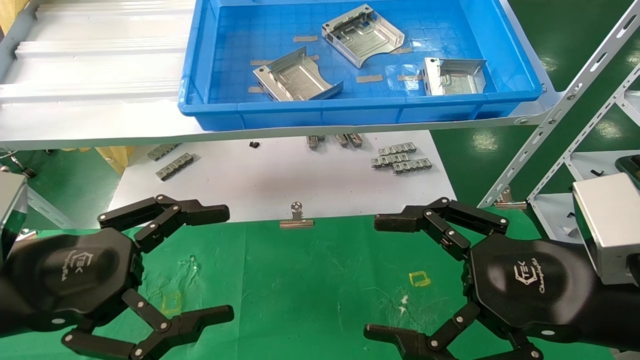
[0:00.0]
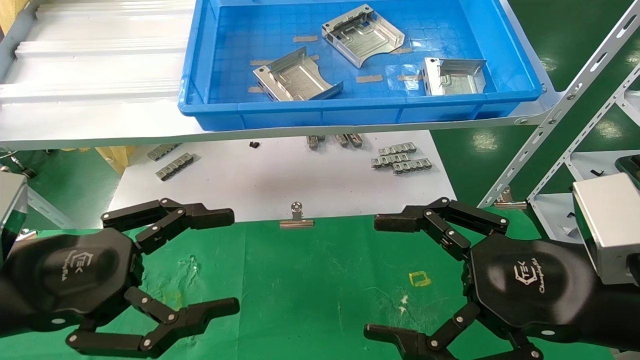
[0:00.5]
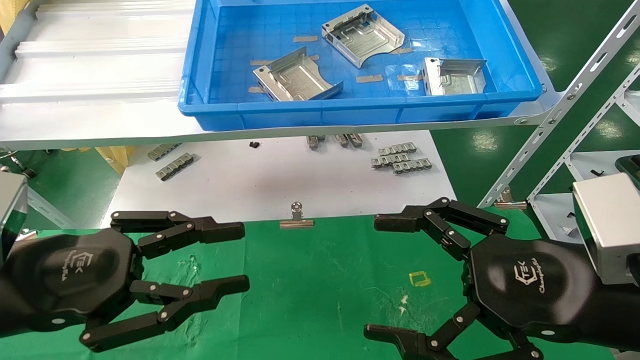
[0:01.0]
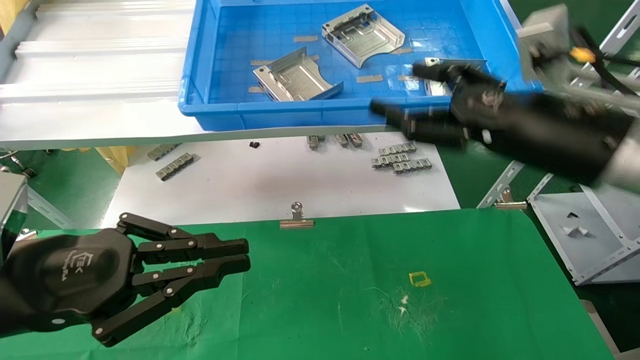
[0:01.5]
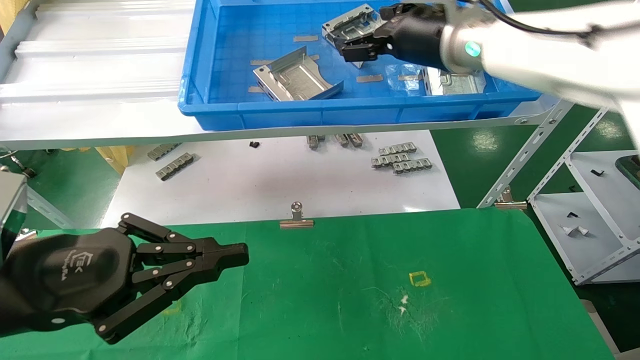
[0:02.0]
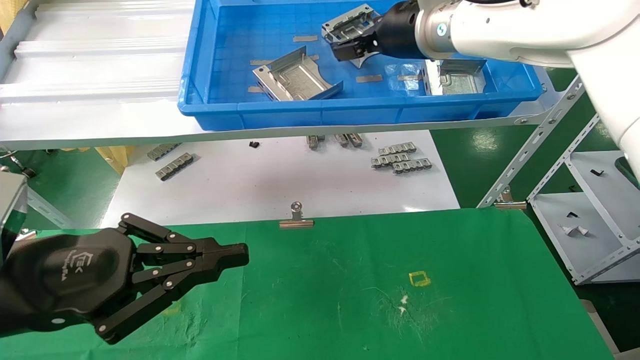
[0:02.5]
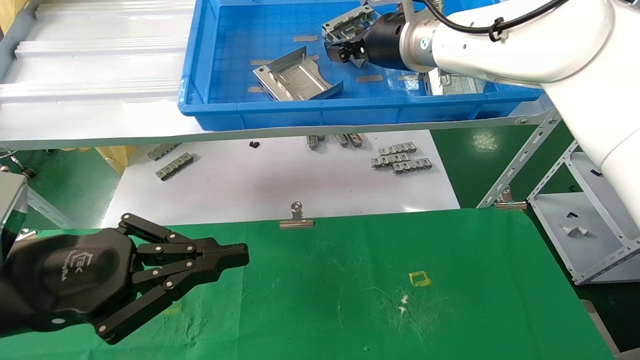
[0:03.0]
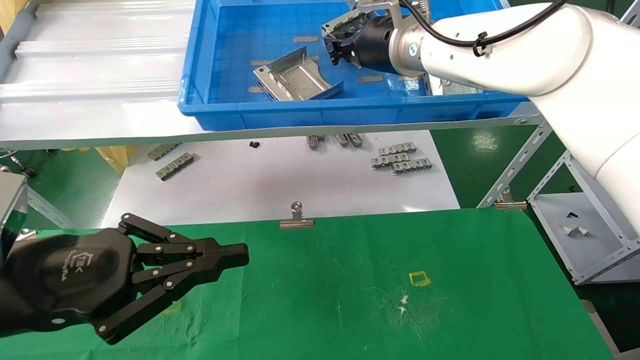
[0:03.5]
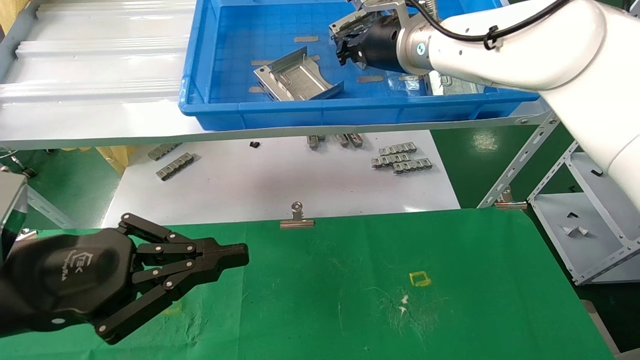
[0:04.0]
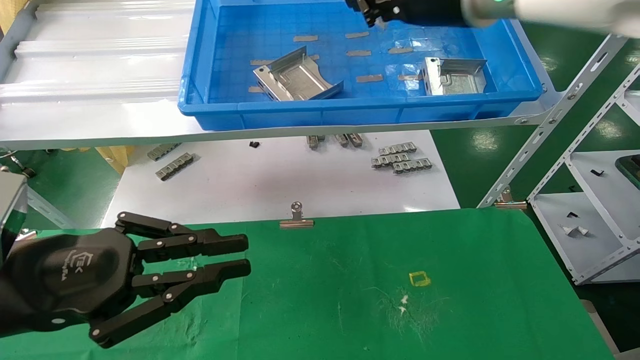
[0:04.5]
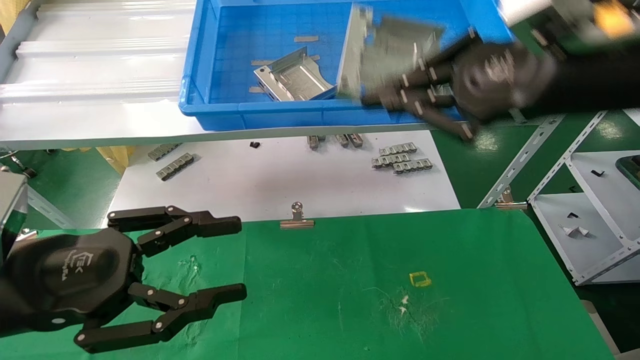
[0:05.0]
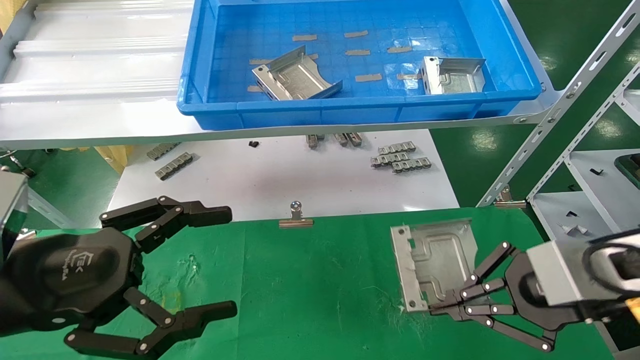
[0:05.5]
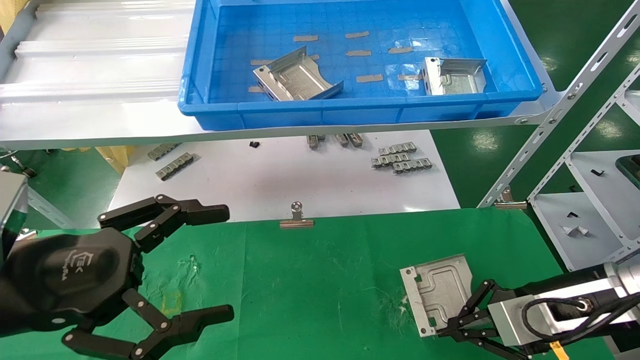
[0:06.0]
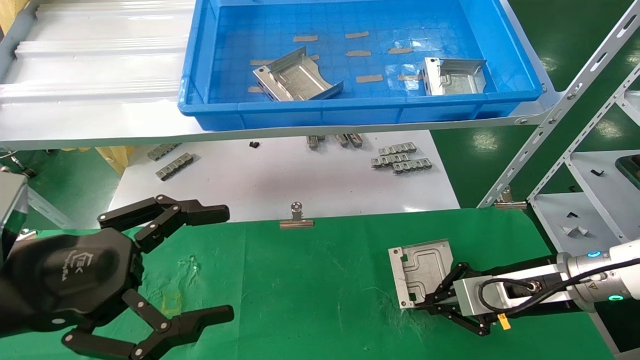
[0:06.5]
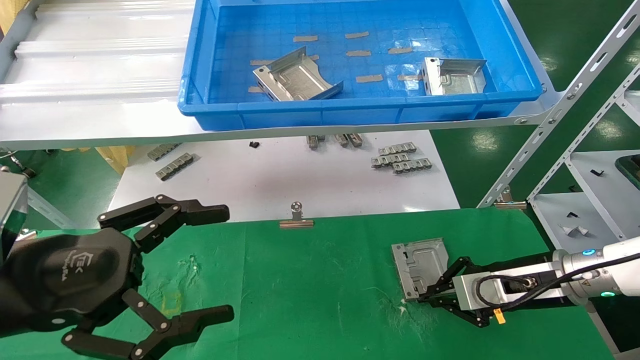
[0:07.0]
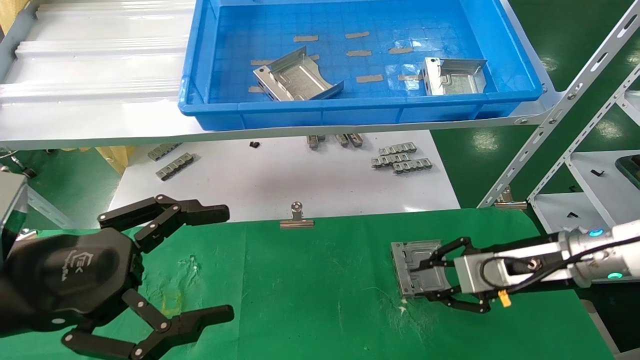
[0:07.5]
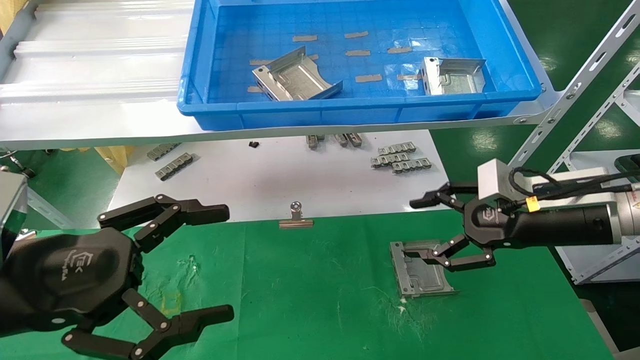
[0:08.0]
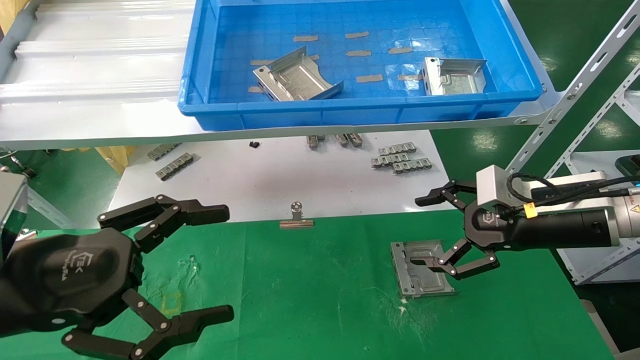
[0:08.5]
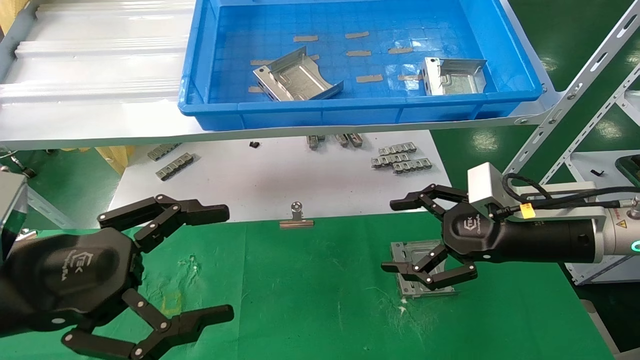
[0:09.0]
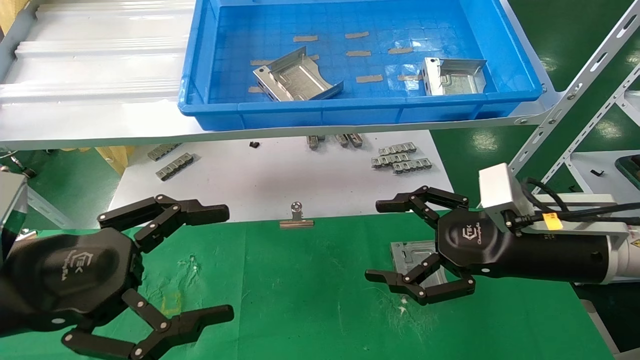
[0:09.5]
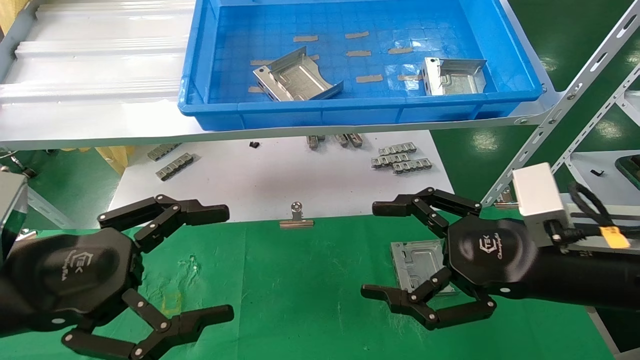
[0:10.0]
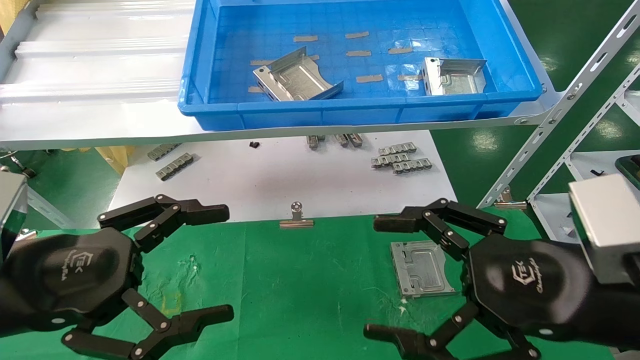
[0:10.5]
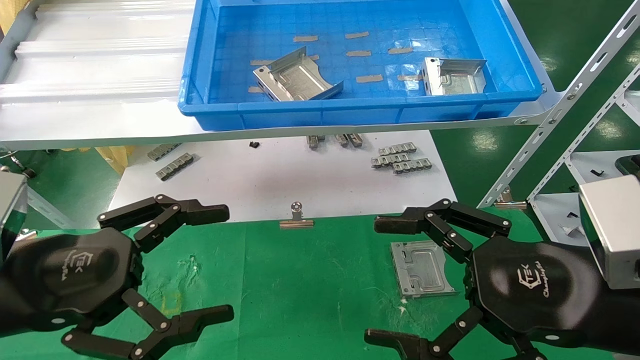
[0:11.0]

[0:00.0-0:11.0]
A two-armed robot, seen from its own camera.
Task of the whole recording: use the mechanical arm to pick up the parts and place them on the table.
Step, 0:01.5 to 0:04.5: Pick up the hard drive bracket from the feeding area.
Step, 0:05.0 to 0:07.5: Place the hard drive bracket into the box.
0:00.0 to 0:02.0: The left gripper closes its fingers, while the right gripper shifts some 30 cm forward and upward.
0:02.0 to 0:03.5: The right gripper travels to the left by roughly 5 cm, and closes.
0:03.5 to 0:05.5: The right gripper moves to the right, backward and downward, approximately 35 cm. The left gripper opens its fingers.
0:05.5 to 0:07.5: The right gripper travels forward and downward by some 15 cm.
0:07.5 to 0:09.0: The right gripper moves upward, roughly 5 cm, and opens.
0:09.0 to 0:11.0: The right gripper is displaced backward by about 15 cm.
